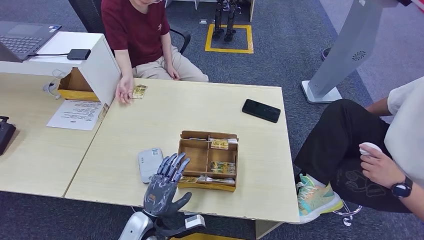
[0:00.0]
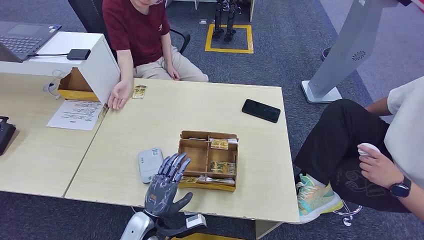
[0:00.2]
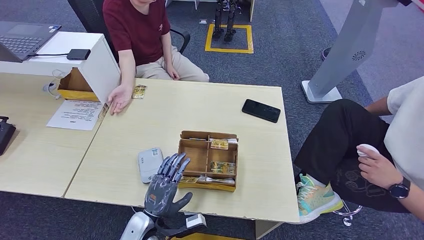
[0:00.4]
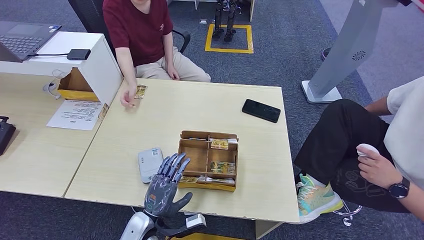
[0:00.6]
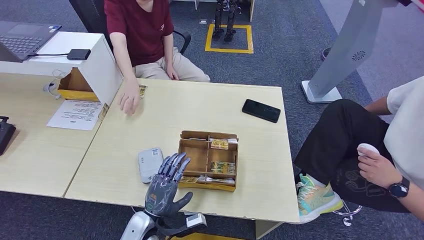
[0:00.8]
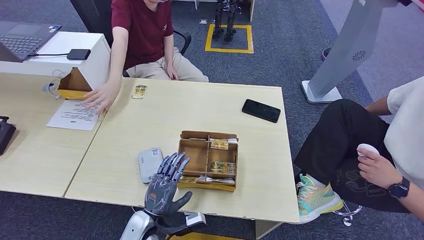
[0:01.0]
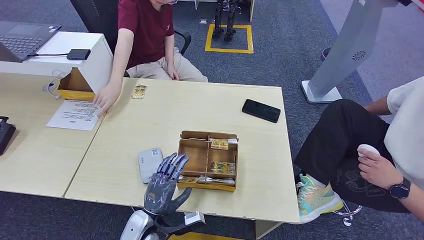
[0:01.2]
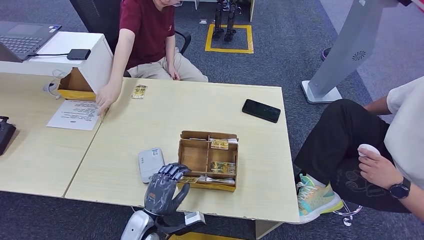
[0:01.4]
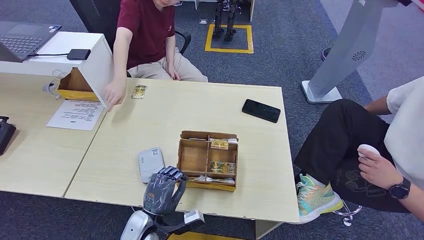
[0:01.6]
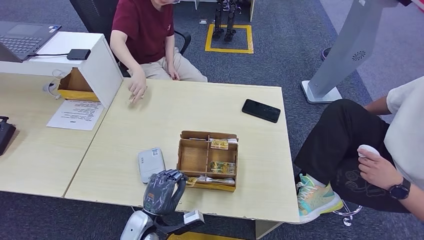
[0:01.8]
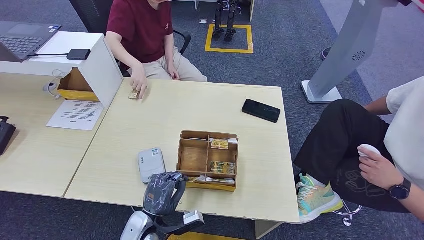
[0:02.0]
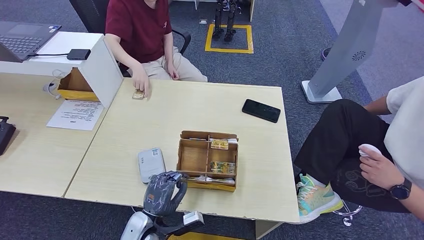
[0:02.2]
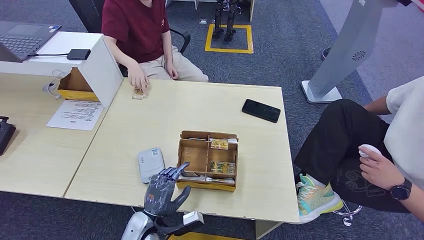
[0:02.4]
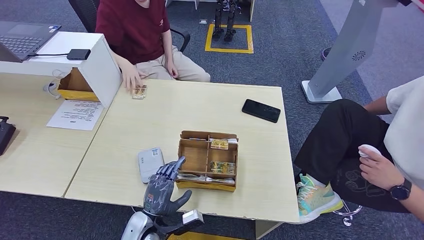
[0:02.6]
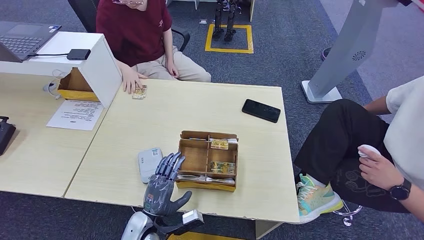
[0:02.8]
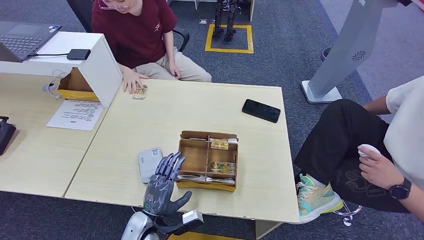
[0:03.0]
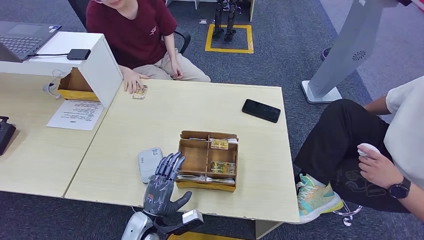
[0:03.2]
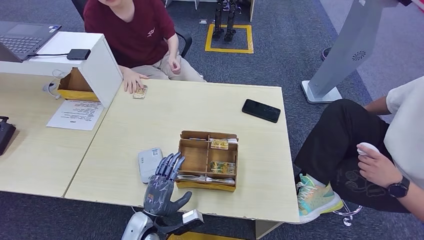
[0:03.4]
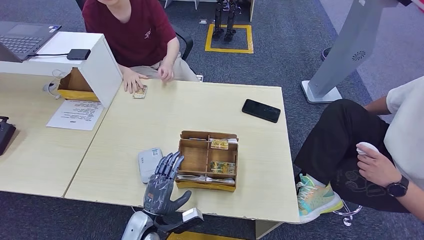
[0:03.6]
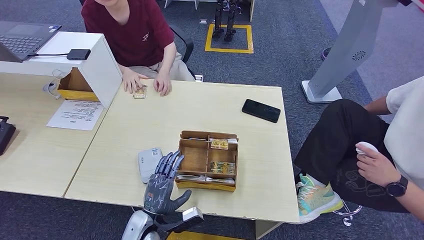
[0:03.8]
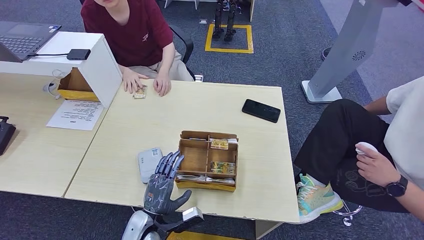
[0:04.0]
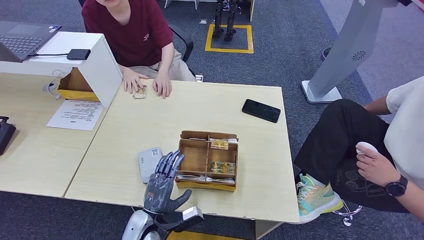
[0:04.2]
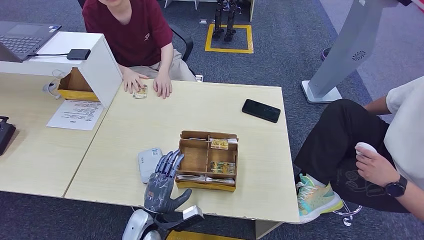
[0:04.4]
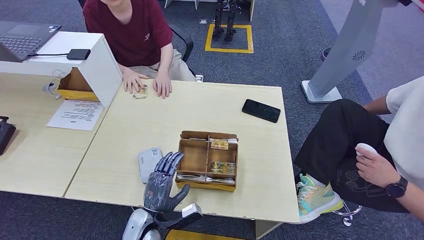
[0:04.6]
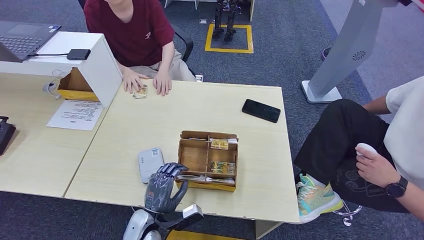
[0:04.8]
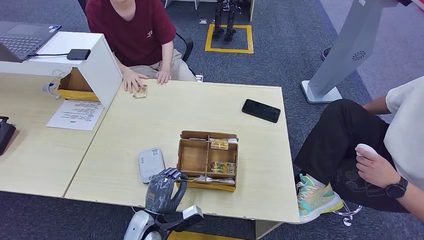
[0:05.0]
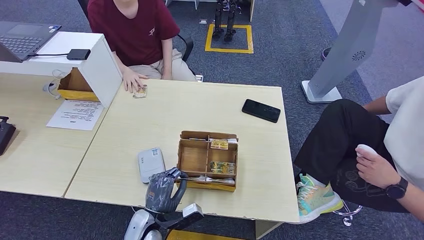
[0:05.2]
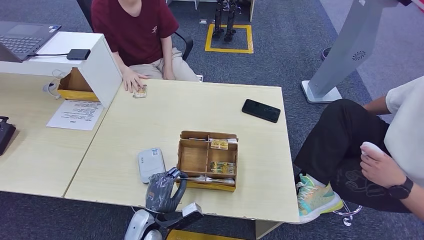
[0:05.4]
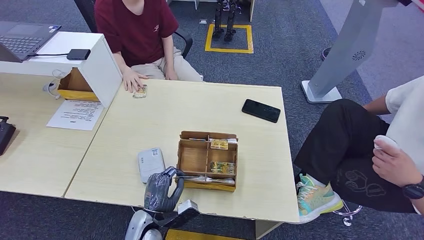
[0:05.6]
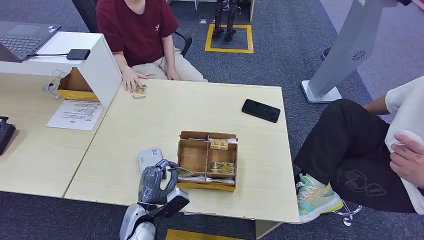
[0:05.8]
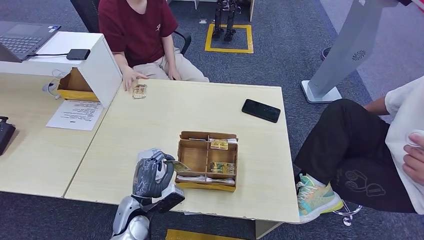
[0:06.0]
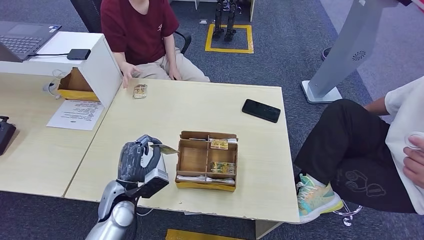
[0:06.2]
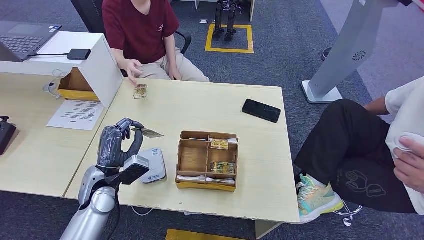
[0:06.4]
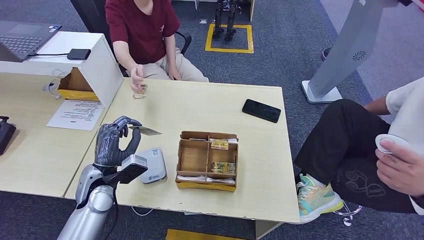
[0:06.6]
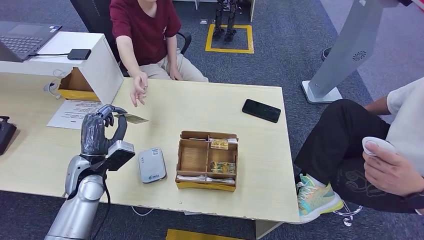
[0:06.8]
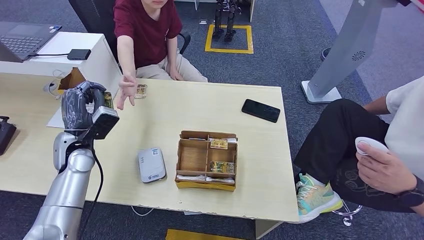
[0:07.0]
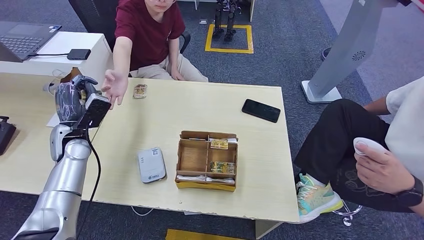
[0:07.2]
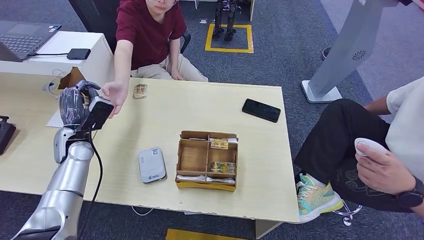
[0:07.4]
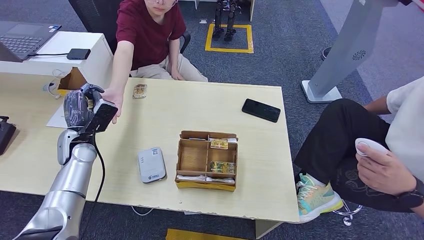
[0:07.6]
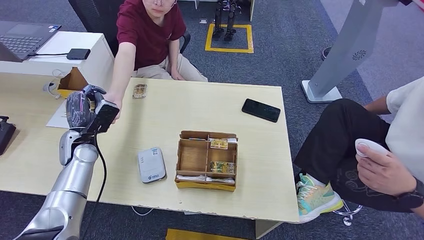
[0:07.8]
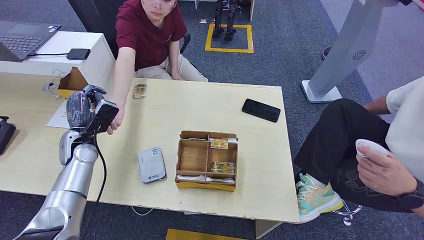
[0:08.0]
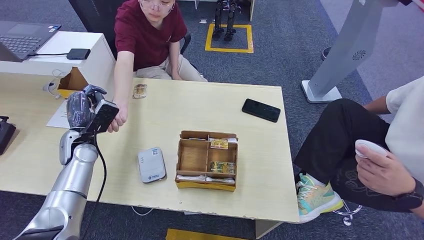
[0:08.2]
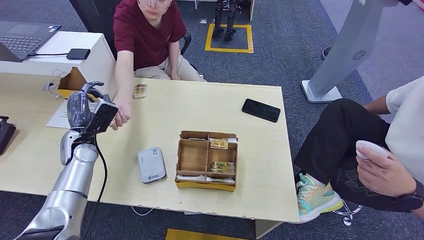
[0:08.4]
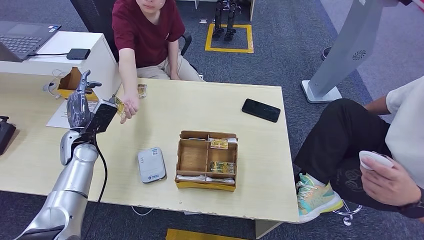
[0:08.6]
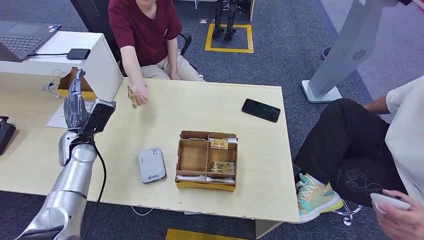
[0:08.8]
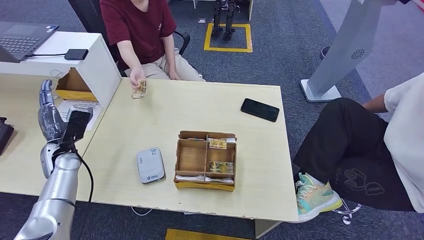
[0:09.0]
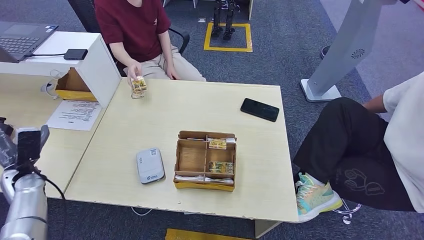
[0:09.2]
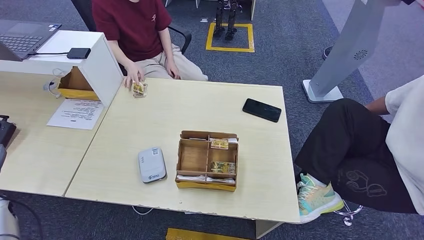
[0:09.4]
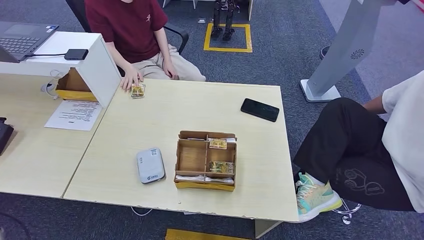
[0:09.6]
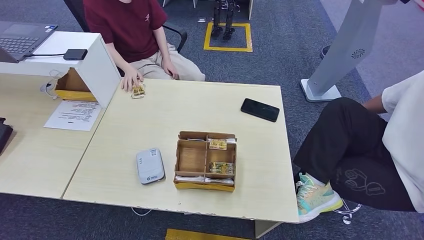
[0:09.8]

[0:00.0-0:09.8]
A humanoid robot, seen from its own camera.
Step, 0:00.0 to 0:05.8: Pick up the room key from the key card box.
Step, 0:06.0 to 0:09.8: Hand the room key to the person.
0:00.0 to 0:01.4: Neither hand changes place.
0:01.4 to 0:04.2: Both hands stay put.
0:04.2 to 0:05.6: The hands stay close to where they were, moving slightly.
0:05.6 to 0:07.0: The left hand heads to the left, upward and forward, covering approximately 30 cm.
0:07.0 to 0:08.4: The hands make only small movements.
0:08.4 to 0:09.8: The left hand travels backward, to the left and downward by some 40 cm.
